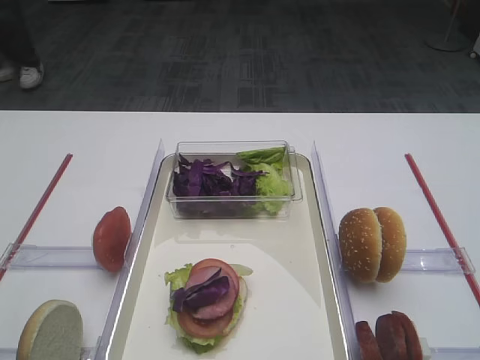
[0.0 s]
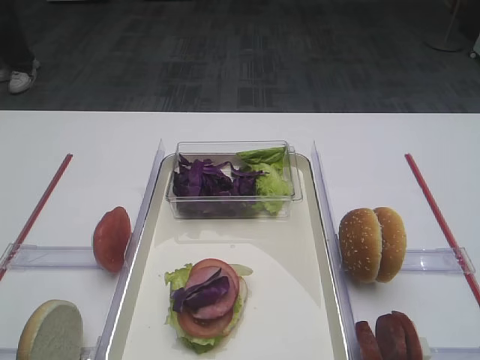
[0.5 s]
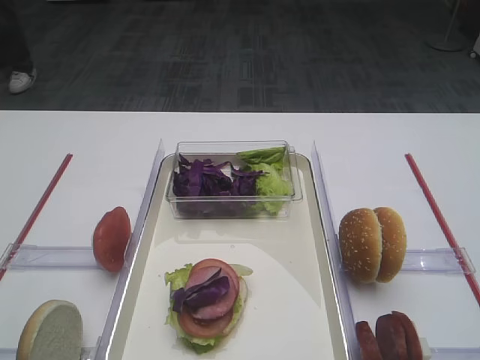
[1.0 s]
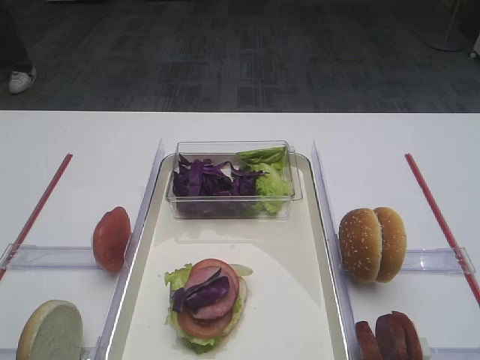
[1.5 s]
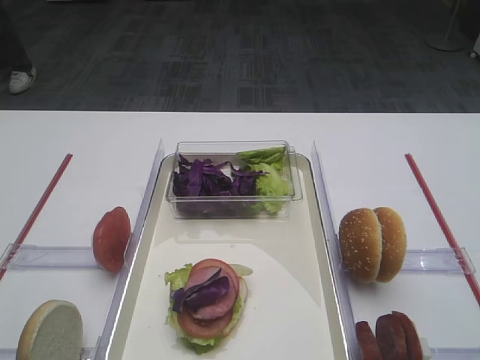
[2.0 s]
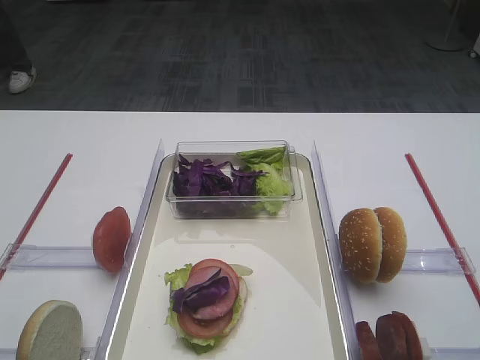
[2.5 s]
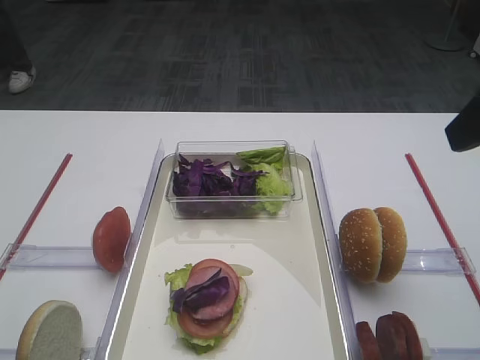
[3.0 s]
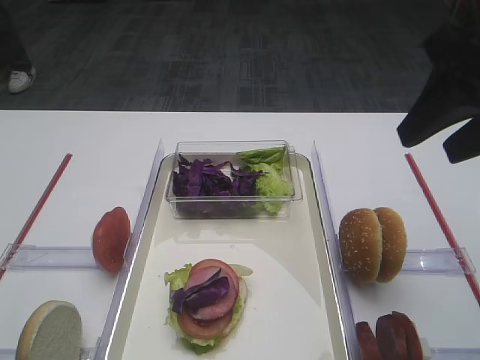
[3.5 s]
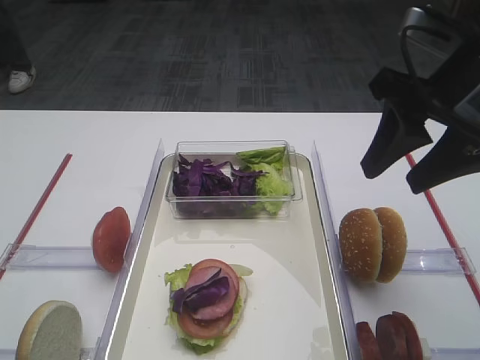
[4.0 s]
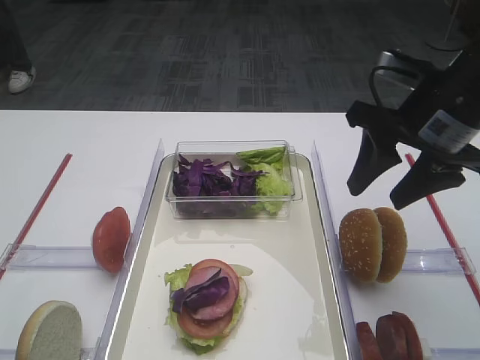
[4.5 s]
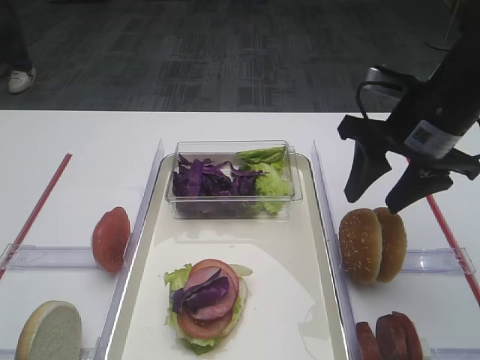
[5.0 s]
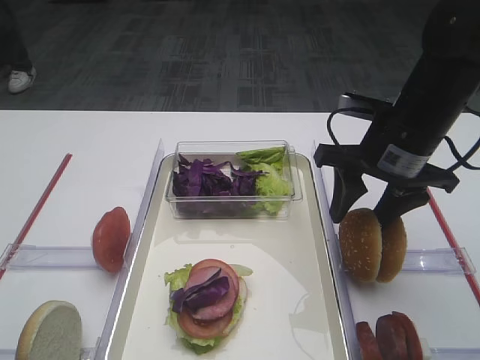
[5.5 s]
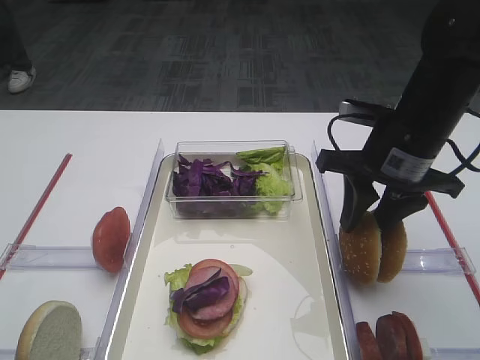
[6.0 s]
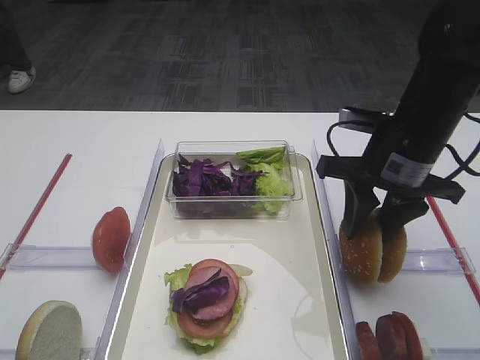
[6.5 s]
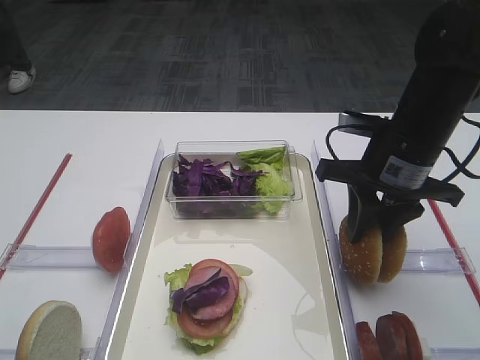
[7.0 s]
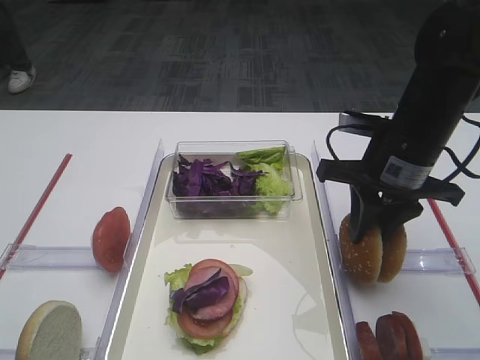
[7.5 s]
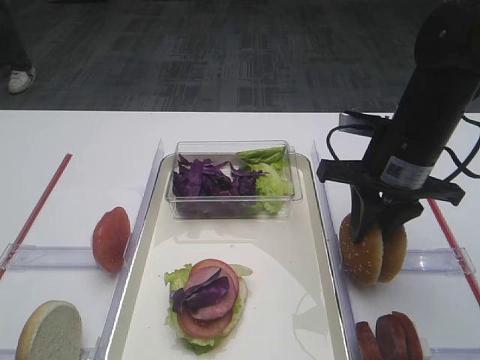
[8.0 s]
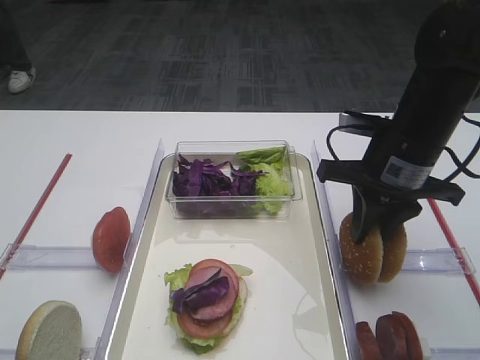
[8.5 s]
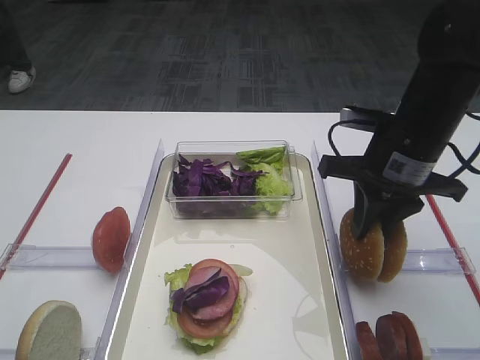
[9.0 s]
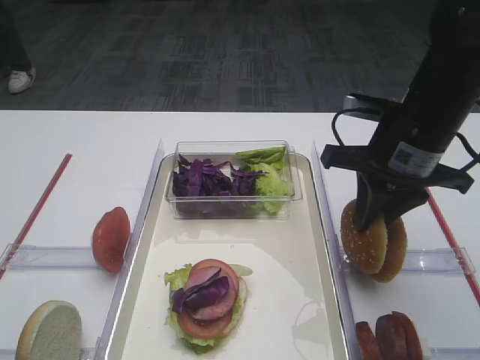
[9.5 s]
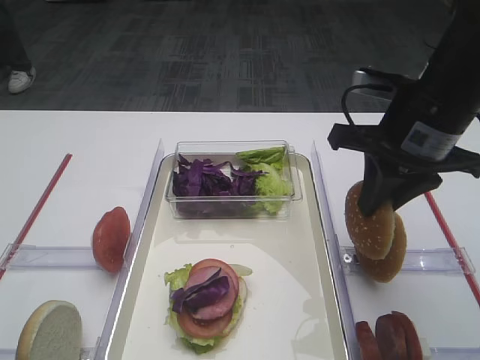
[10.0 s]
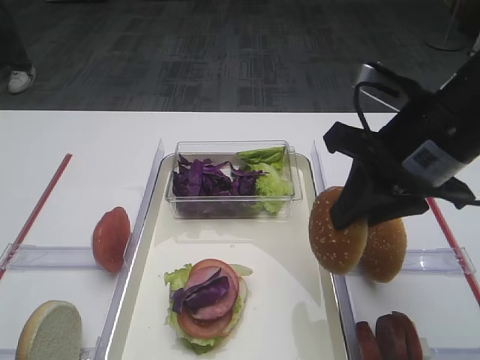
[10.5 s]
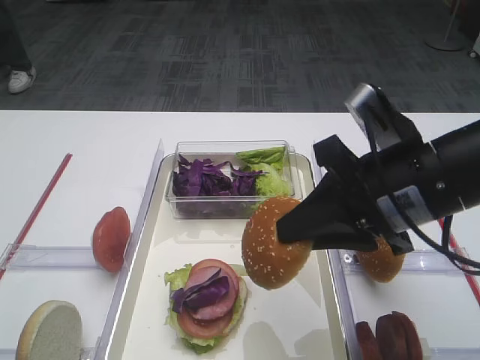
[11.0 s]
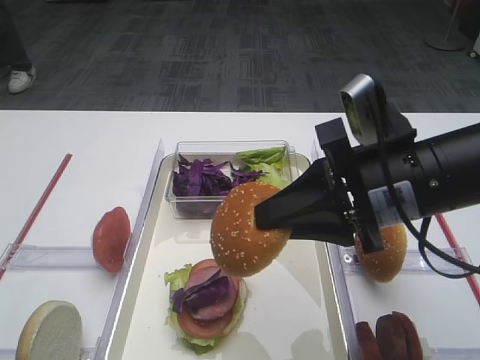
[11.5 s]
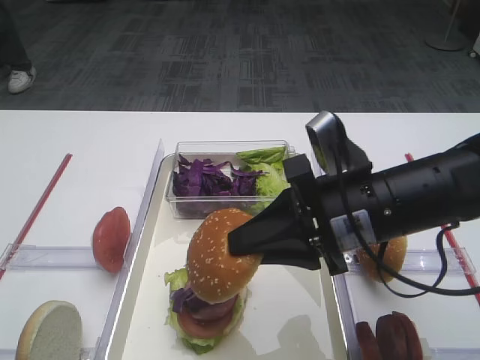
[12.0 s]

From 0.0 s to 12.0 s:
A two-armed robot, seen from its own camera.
Step, from 0.0 s to 10.0 s: Pick up the hamburger lid with the right gripper.
From 2.0 s to 4.0 s: The right gripper travels forward by some 20 cm, and closes.
From 4.0 s to 6.0 s: The right gripper is displaced downward and forward by approximately 10 cm.
From 6.0 s to 8.0 s: Both grippers stay put.
From 8.0 s to 10.0 s: The right gripper is displaced upward by about 5 cm.
From 10.0 s to 12.0 s: The right gripper shifts some 10 cm backward, downward and to the left.

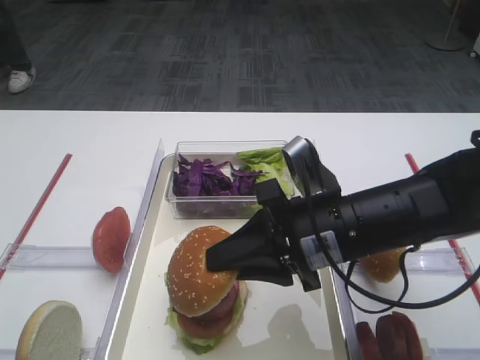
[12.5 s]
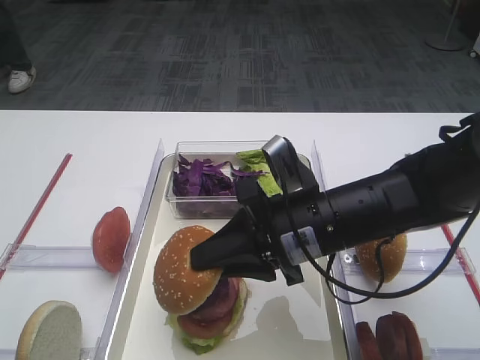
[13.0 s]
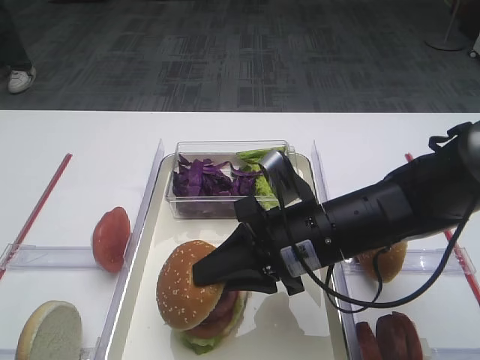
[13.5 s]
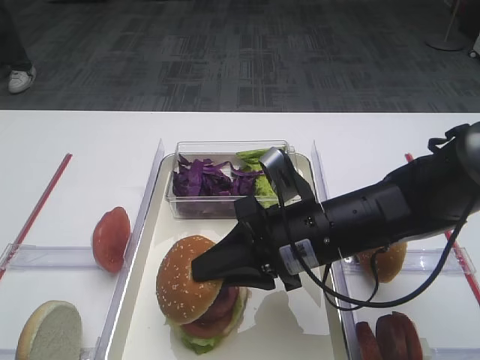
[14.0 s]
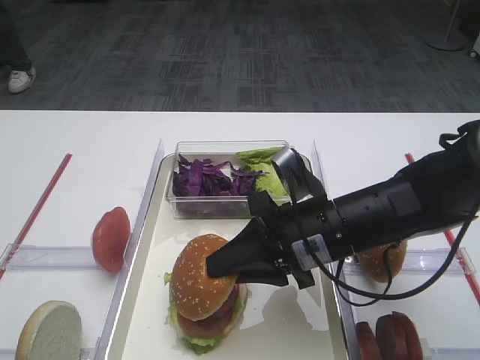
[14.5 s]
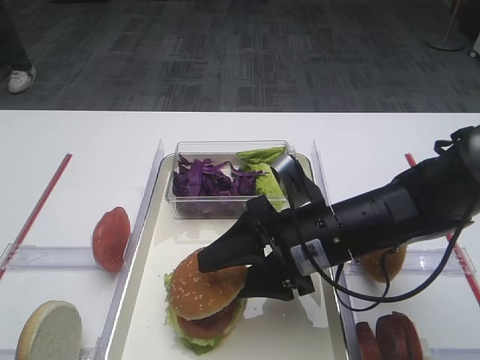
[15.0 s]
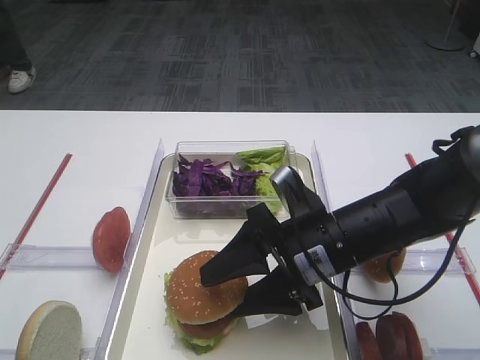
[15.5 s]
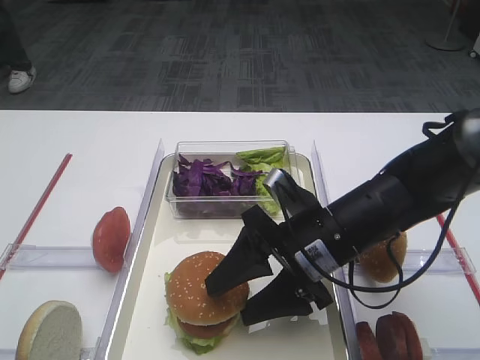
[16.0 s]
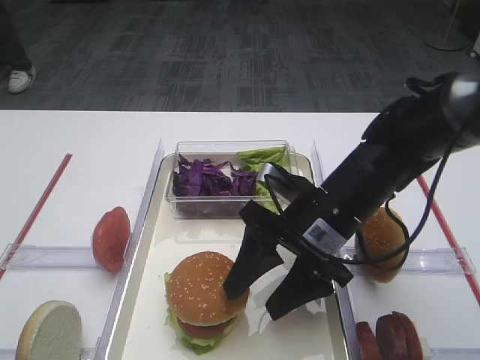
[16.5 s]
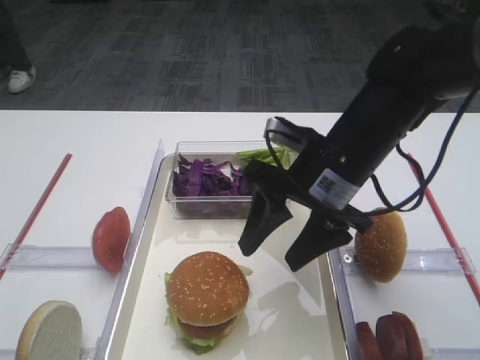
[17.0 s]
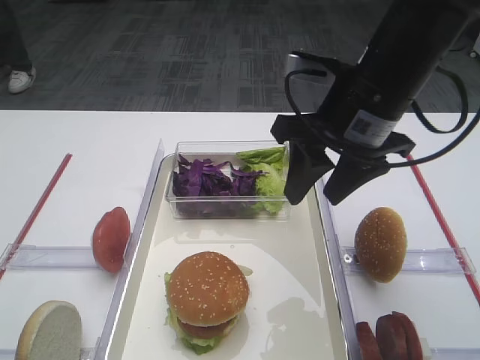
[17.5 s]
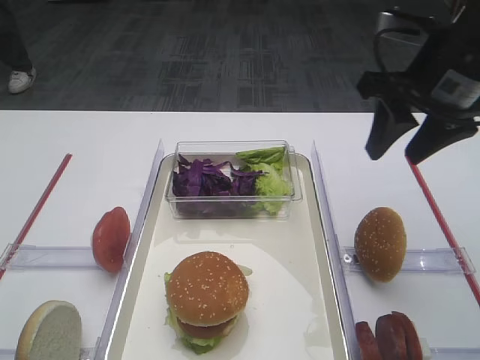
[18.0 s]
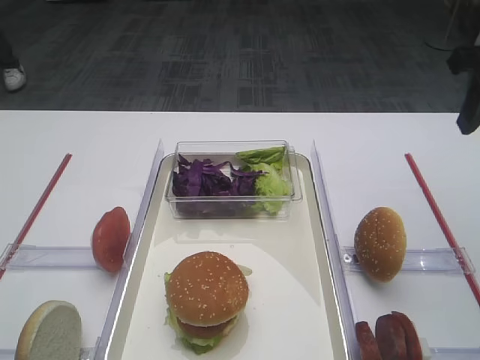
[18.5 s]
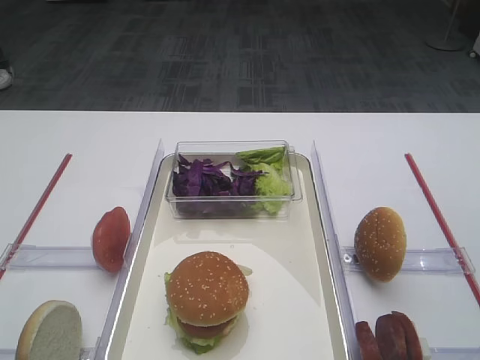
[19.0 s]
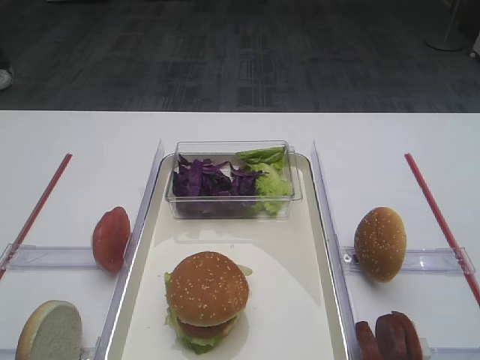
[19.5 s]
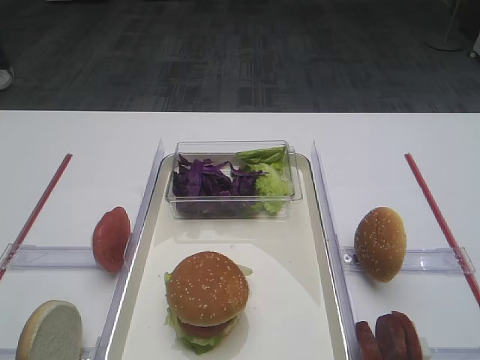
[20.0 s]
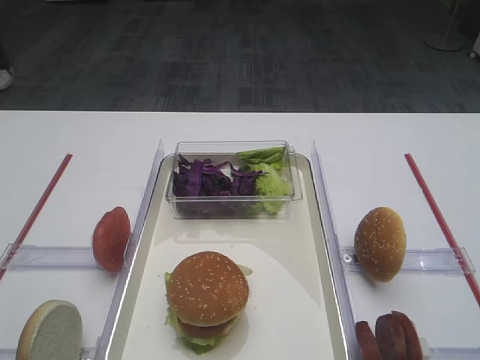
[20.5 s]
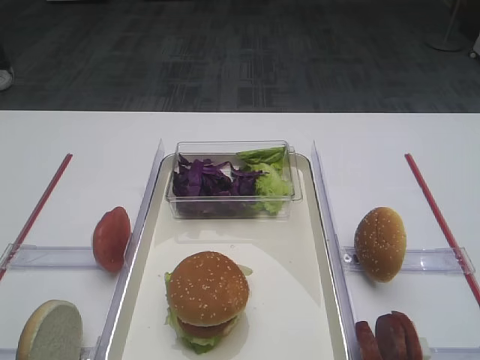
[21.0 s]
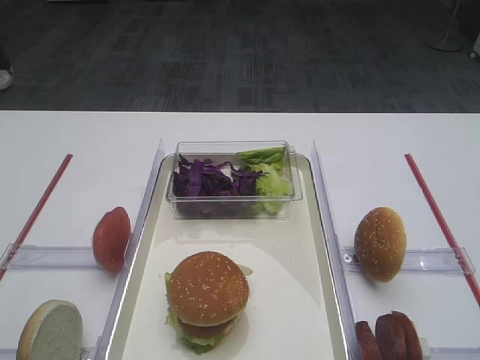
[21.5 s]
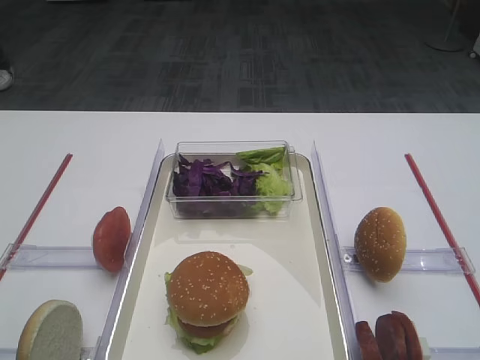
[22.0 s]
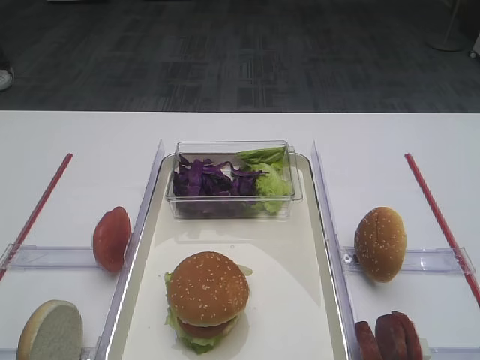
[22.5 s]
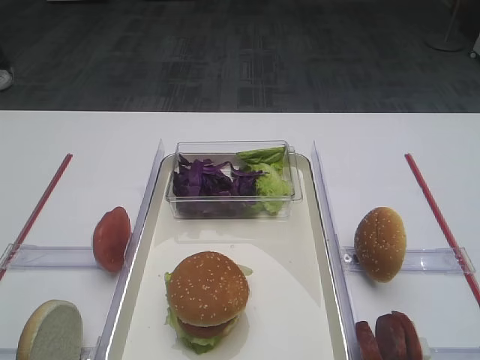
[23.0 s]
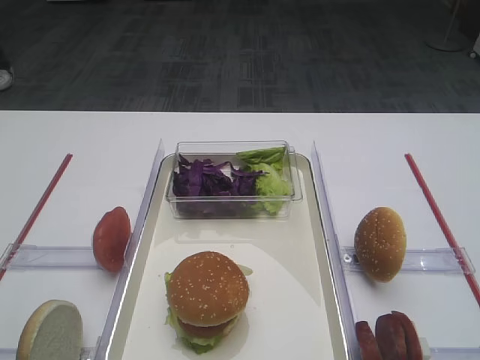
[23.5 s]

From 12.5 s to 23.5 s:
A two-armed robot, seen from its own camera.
Step, from 12.5 s to 16.5 s: Place the hamburger lid on the purple cabbage with the right gripper.
From 12.5 s to 14.5 s: The grippers make only small movements.
From 14.5 s to 16.0 s: The right gripper opens up.
From 16.0 s to 18.0 s: The right gripper is displaced upward, to the right and forward by roughly 20 cm.
From 18.0 s to 20.0 s: The right gripper travels backward and upward by about 25 cm.
From 21.5 s to 23.5 s: Both grippers stay about where they are.

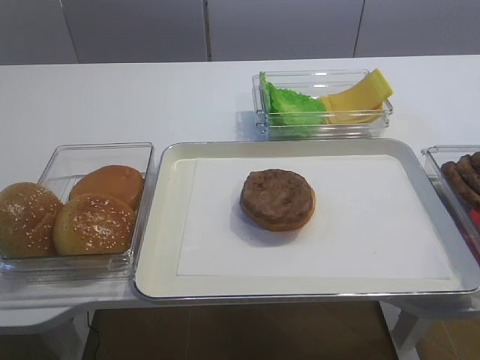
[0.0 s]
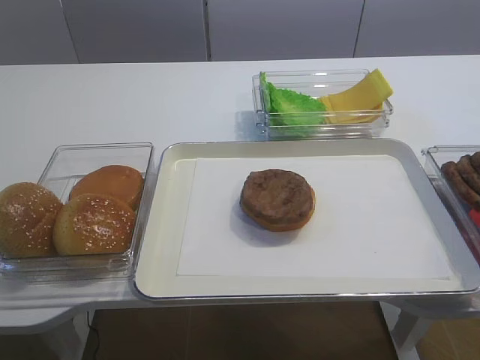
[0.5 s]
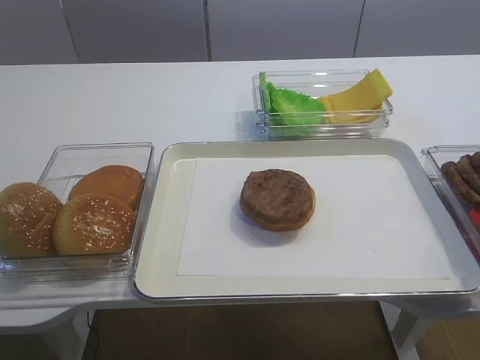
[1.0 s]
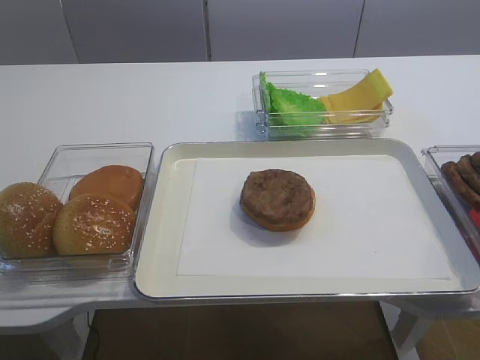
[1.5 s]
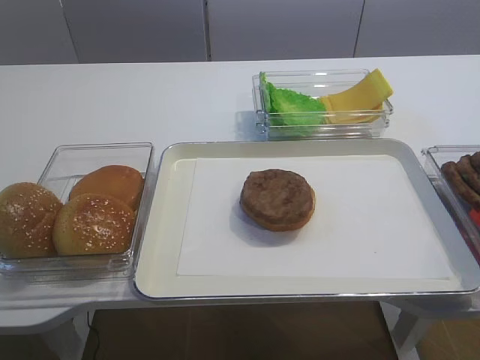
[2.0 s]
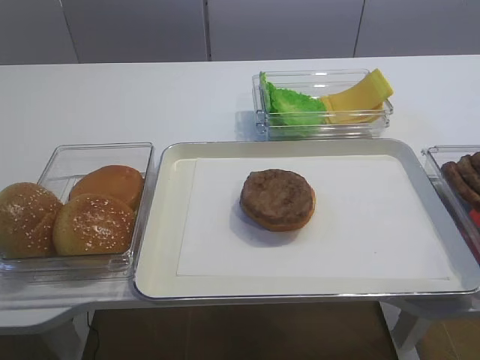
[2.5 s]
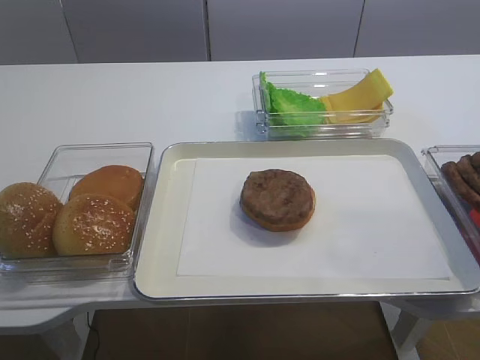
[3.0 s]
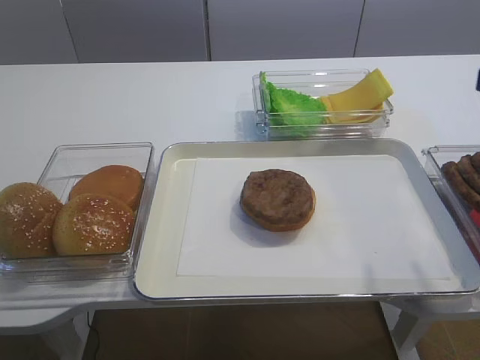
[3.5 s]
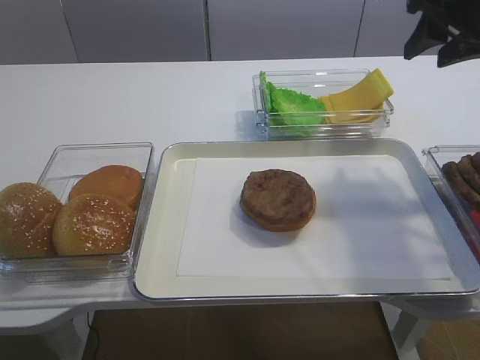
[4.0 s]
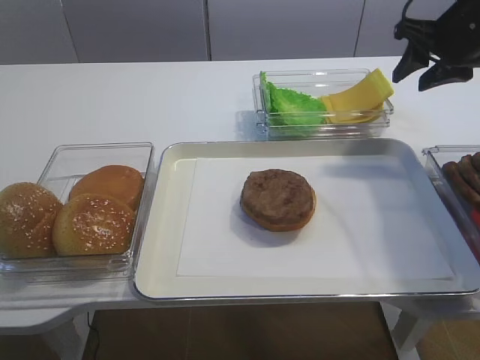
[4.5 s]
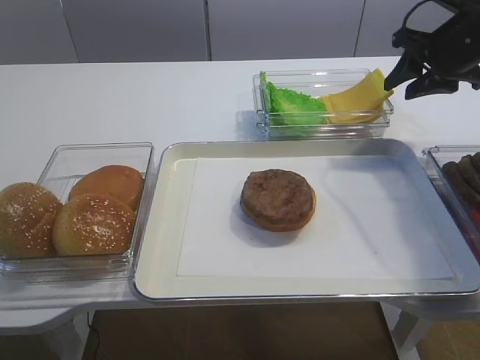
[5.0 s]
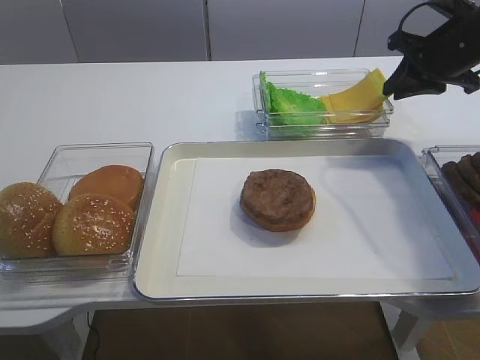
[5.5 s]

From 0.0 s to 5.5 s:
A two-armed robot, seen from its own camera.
From 2.0 s to 3.5 s: The right gripper moves forward, approximately 20 cm.
From 3.5 s to 5.5 s: The right gripper goes some 25 cm forward and downward, and closes its fingers.
